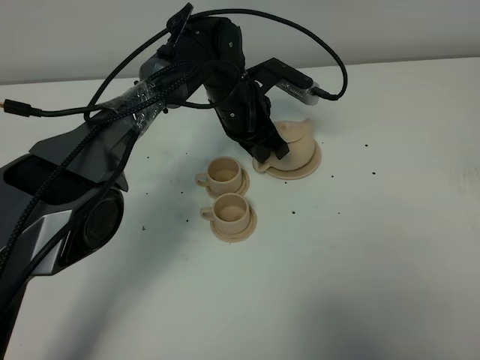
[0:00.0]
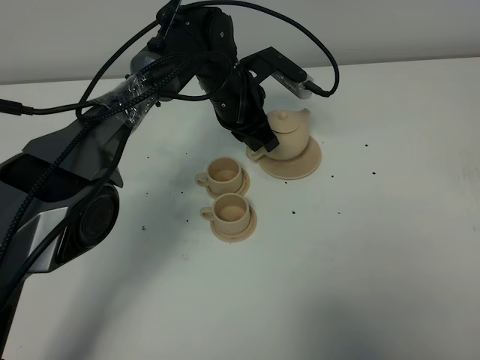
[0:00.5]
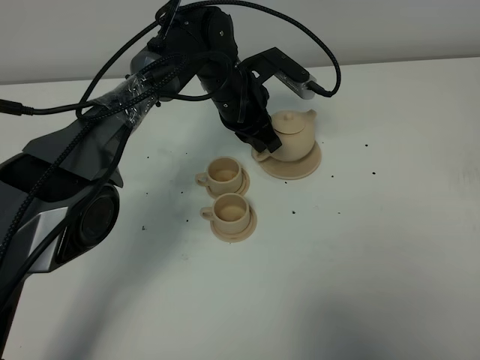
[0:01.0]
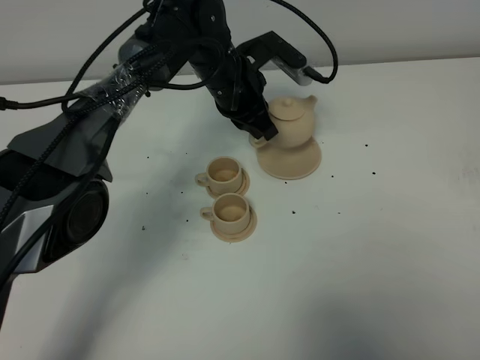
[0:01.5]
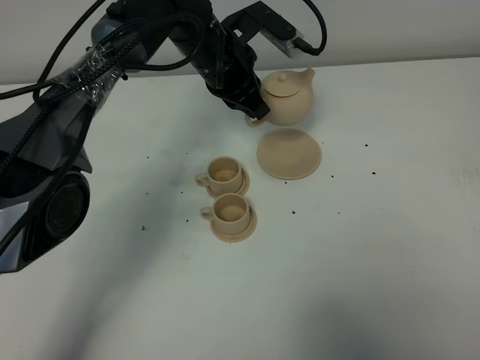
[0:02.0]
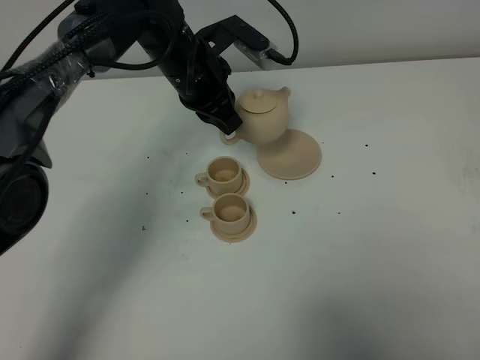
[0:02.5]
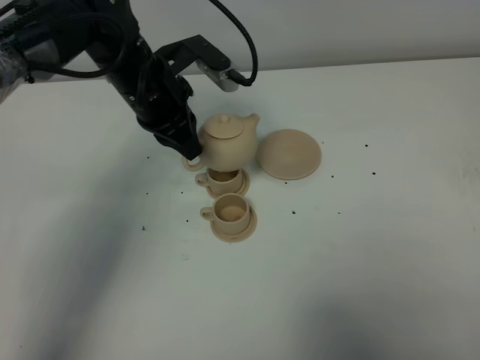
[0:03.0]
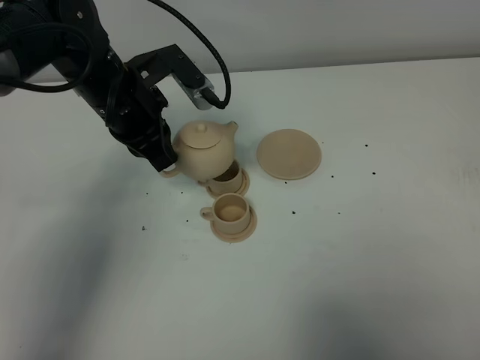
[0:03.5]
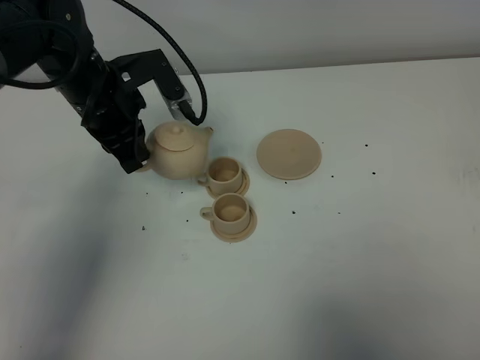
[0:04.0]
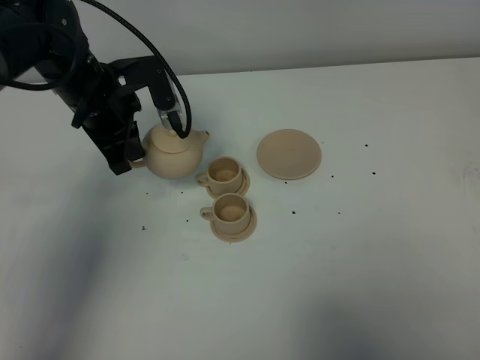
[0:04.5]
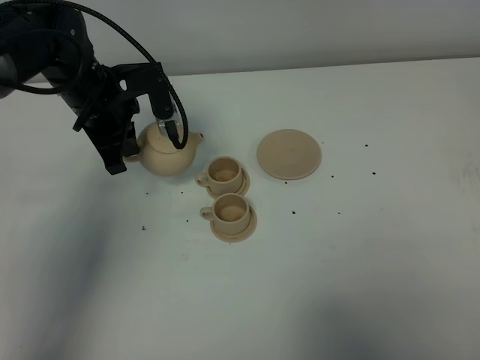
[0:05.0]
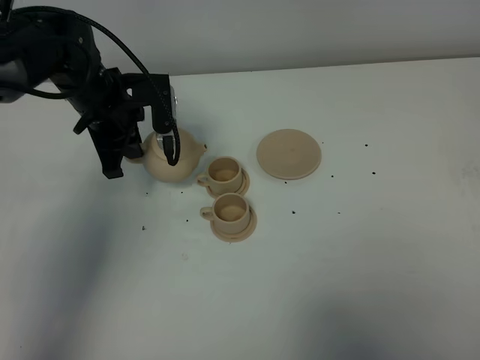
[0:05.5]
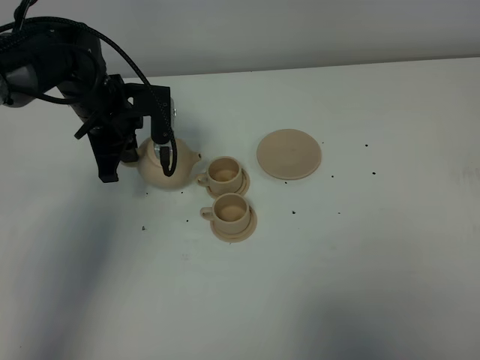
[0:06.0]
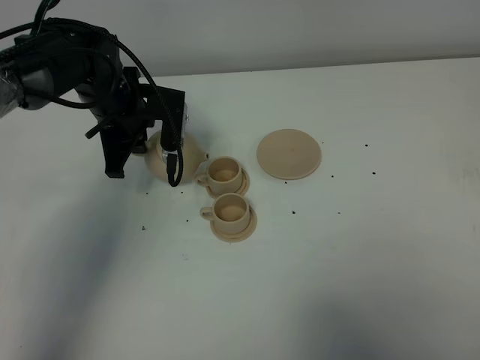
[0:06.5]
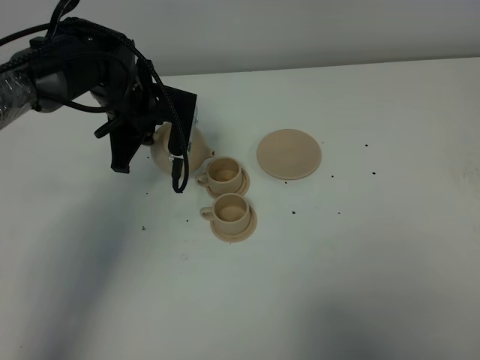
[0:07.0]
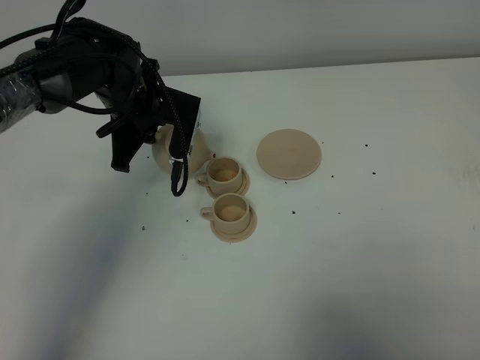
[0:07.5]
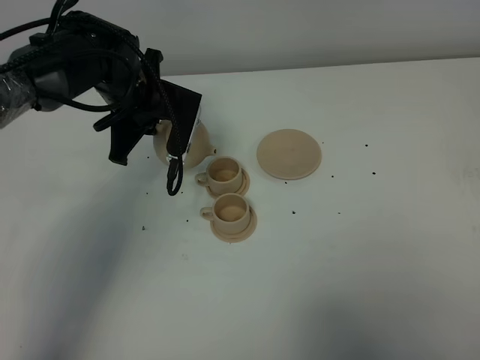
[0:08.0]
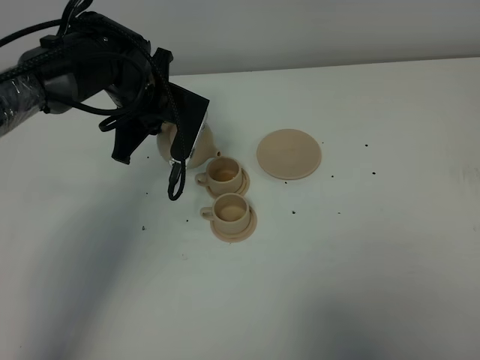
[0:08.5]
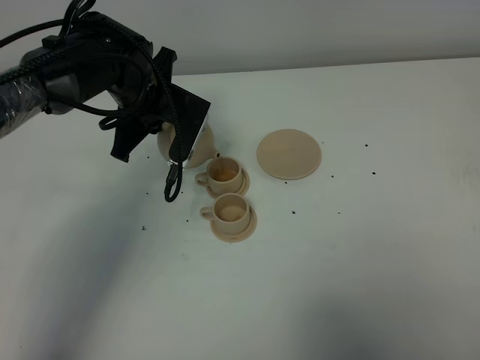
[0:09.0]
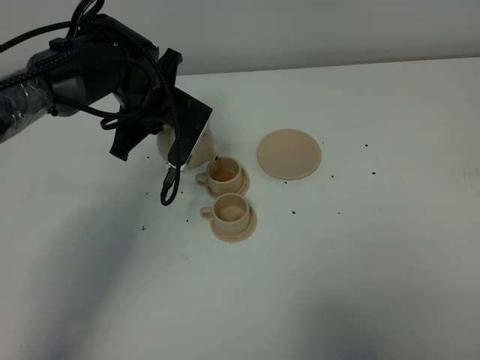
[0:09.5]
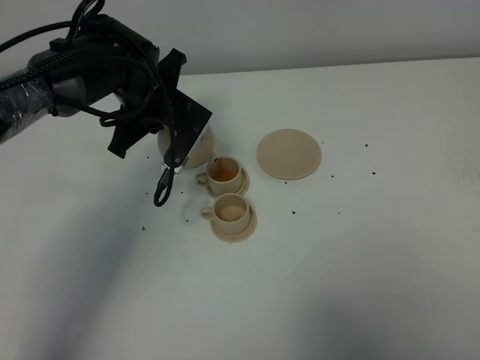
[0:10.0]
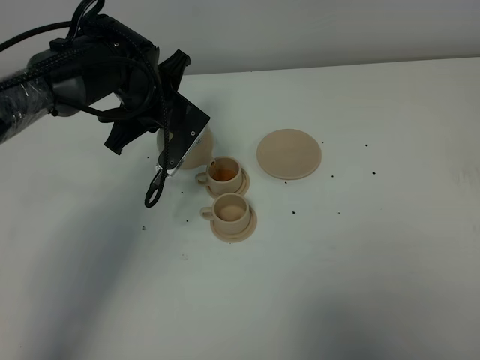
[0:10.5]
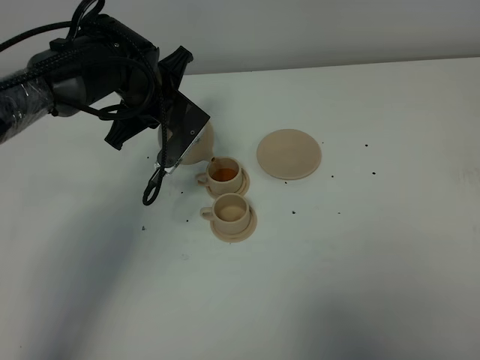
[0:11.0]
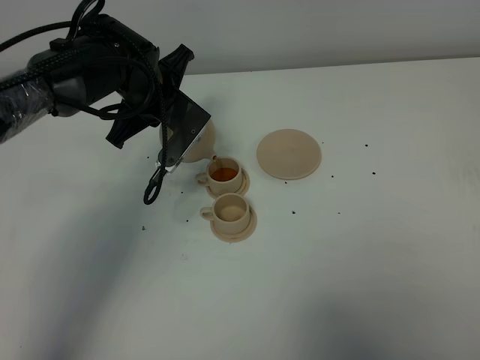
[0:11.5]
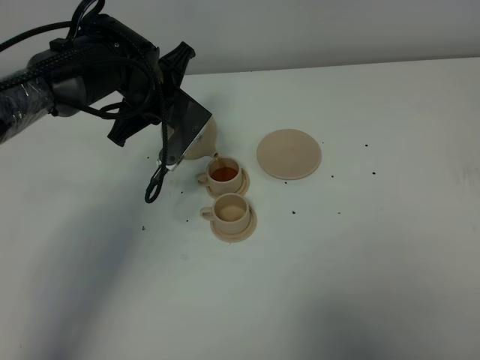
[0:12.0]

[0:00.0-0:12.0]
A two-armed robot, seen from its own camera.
Task of the whole recording: grasp the brown teapot and pour the tea into the two brown teacups one by one, put the brown teapot back in its original place.
0:00.0 to 0:02.0: The left gripper travels upward by some 5 cm.
0:02.0 to 0:04.0: The left gripper heads to the left and backward, covering some 15 cm.
0:04.0 to 0:06.0: The left gripper goes about 5 cm downward.
0:08.0 to 0:10.0: There are only small adjustments of the grippers.
0:10.0 to 0:12.0: The grippers stay close to where they were, moving slightly.

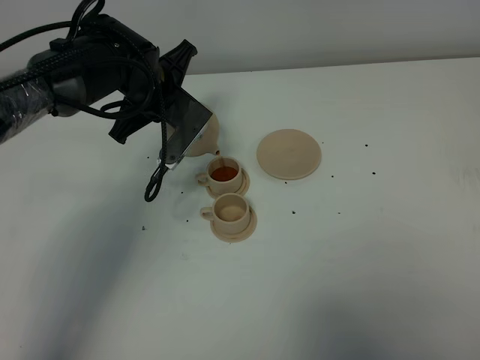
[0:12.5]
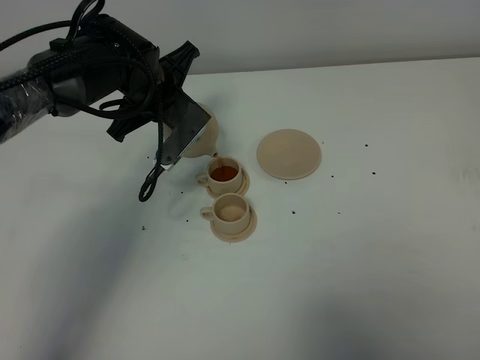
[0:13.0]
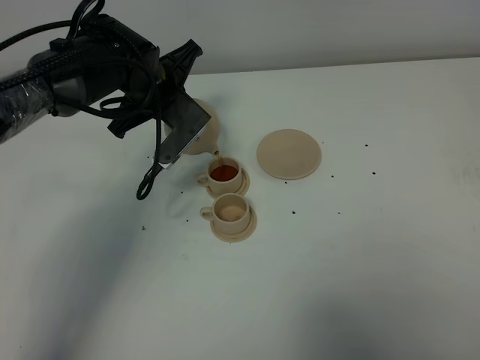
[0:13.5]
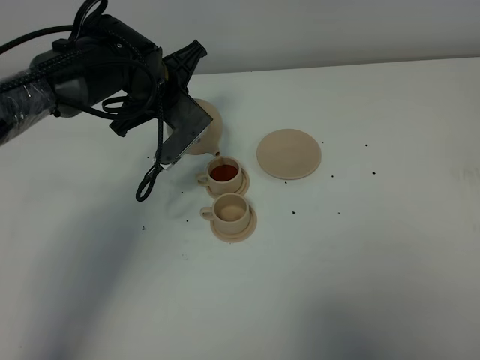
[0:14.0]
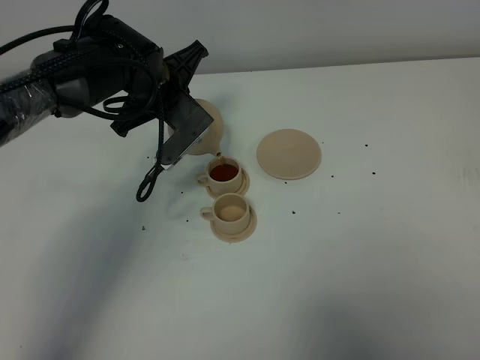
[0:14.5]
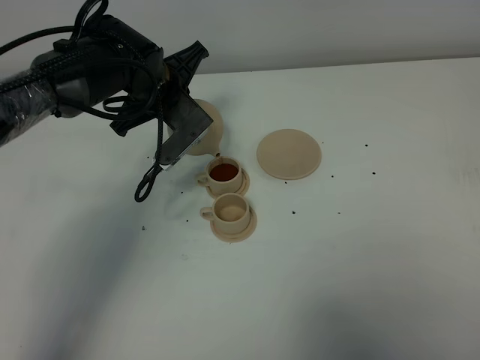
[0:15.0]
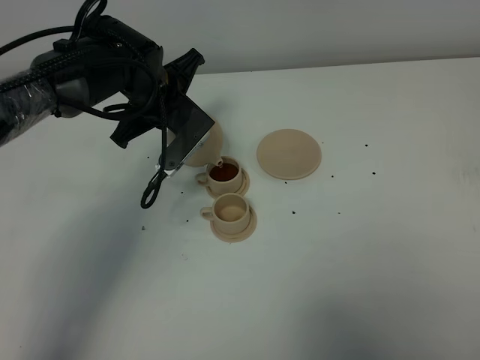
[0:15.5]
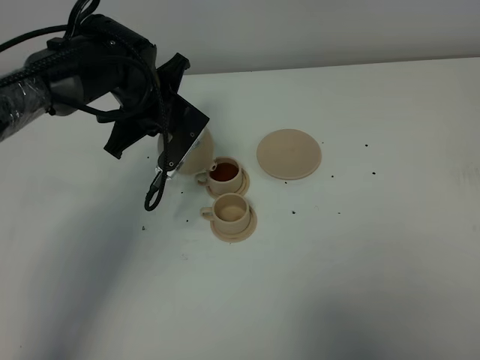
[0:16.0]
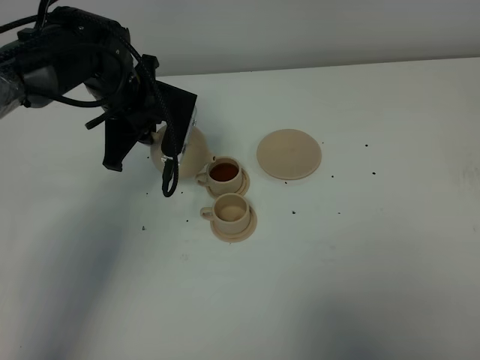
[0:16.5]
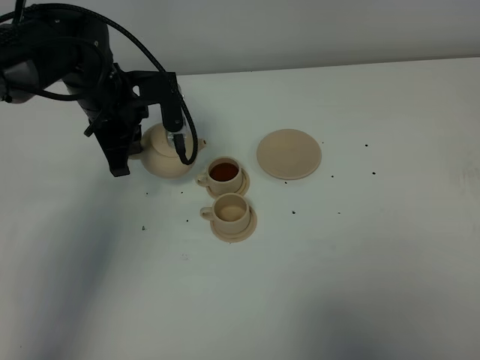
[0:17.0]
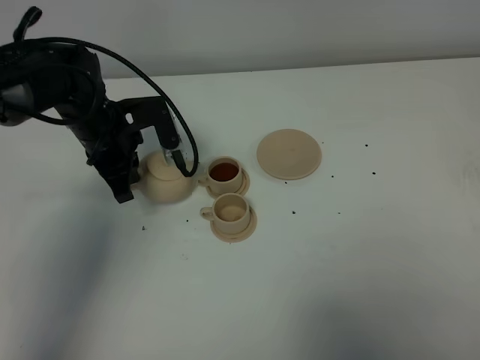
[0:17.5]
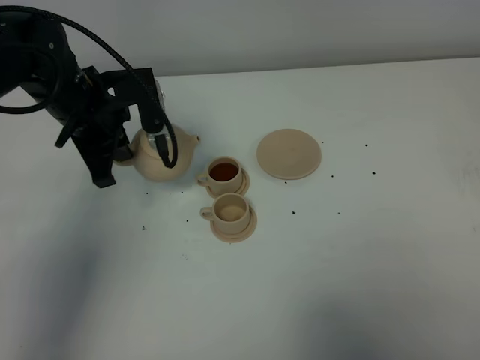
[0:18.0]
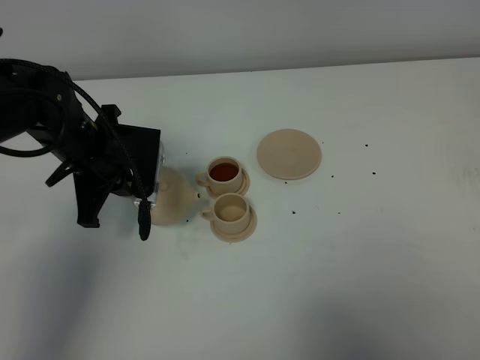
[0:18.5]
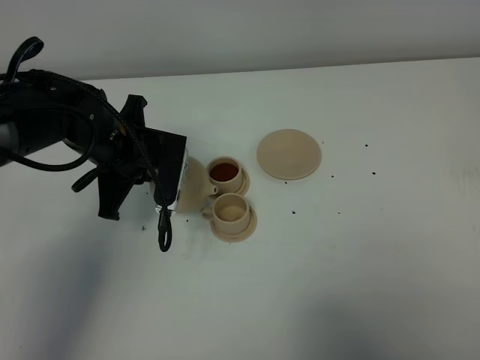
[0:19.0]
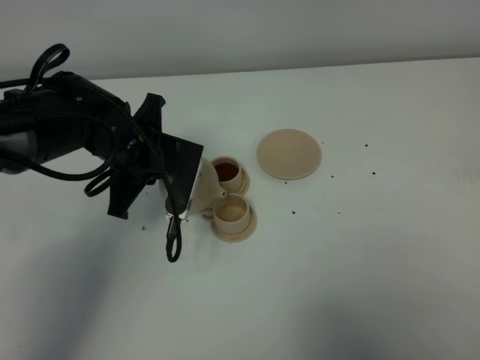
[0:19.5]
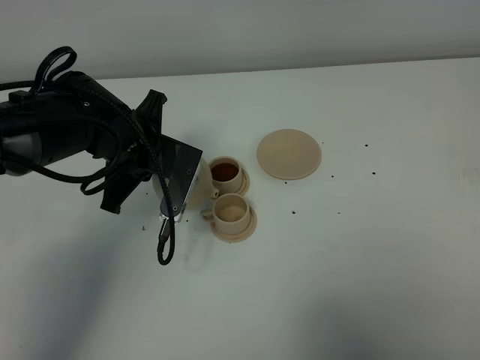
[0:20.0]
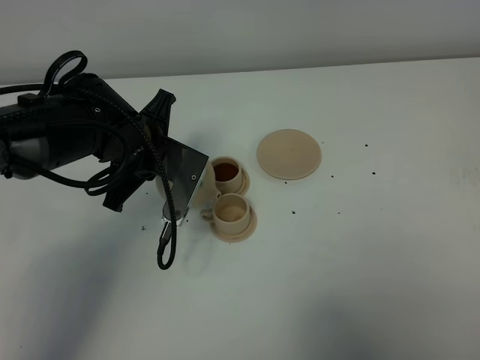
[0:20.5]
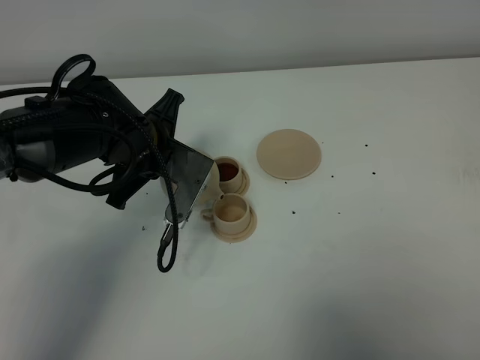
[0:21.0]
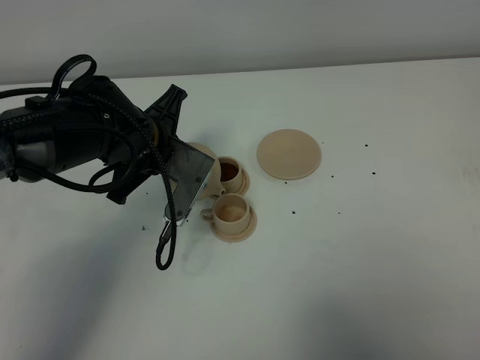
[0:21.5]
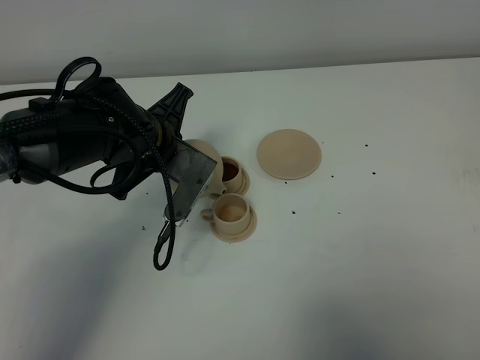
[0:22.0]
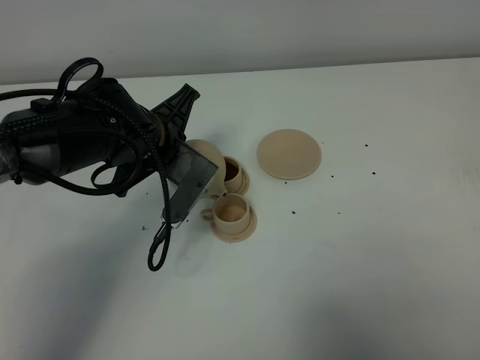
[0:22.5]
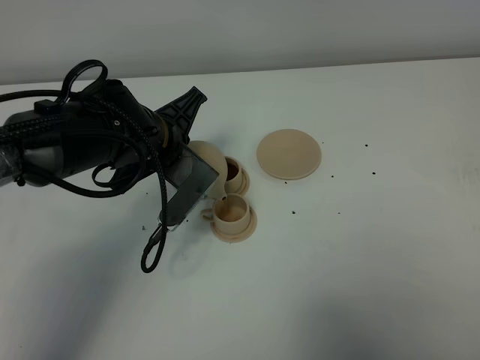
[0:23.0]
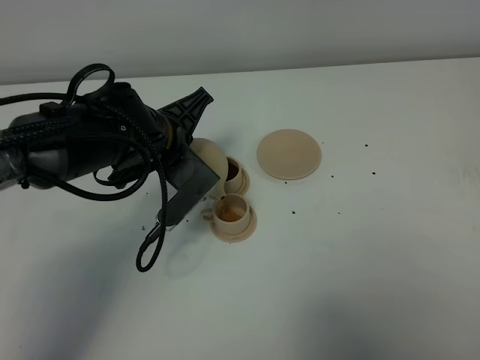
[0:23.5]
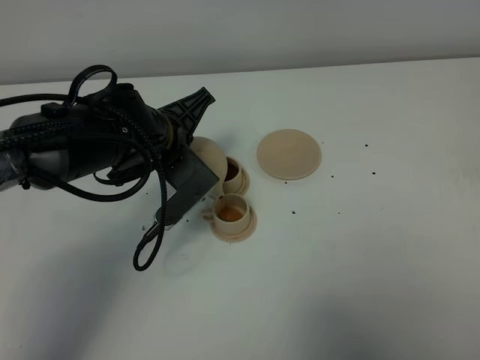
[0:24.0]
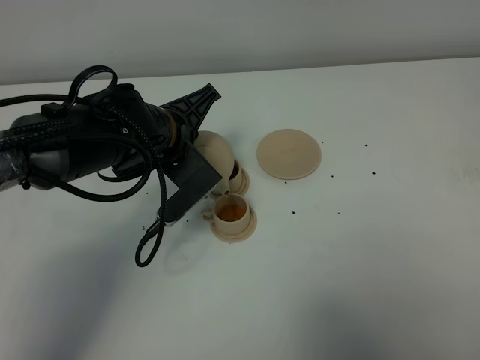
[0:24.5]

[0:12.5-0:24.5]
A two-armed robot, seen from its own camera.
Task of the whole recording: grasp the brown teapot and pour the tea into the two brown teacups one by one, put the brown teapot back in its original place.
Step, 0:12.5 to 0:15.5: Pour tea into the teacup with the left gripper.
0:12.5 to 0:14.5: The grippers make only small movements.
0:16.5 to 0:18.5: The left gripper moves backward, approximately 5 cm.
0:18.5 to 0:20.5: The left gripper travels to the right by some 5 cm.
0:20.5 to 0:22.5: The grippers make only small movements.
0:22.5 to 0:24.5: There are only small adjustments of the grippers.

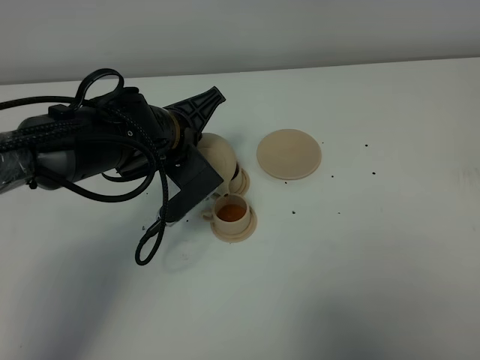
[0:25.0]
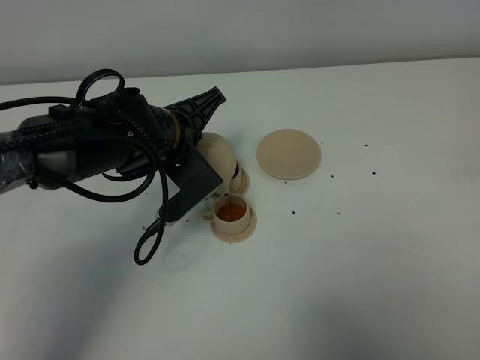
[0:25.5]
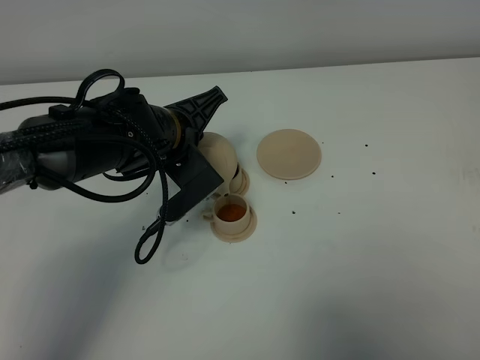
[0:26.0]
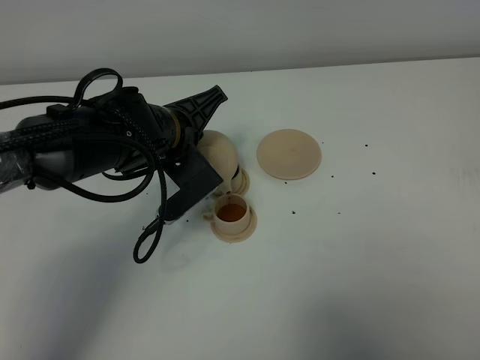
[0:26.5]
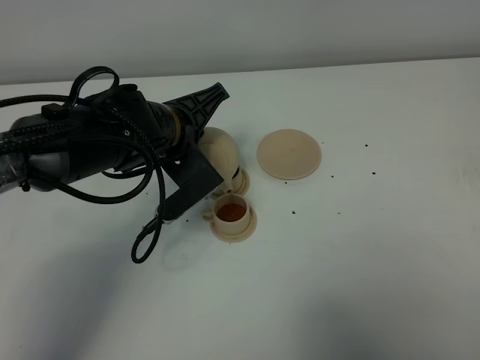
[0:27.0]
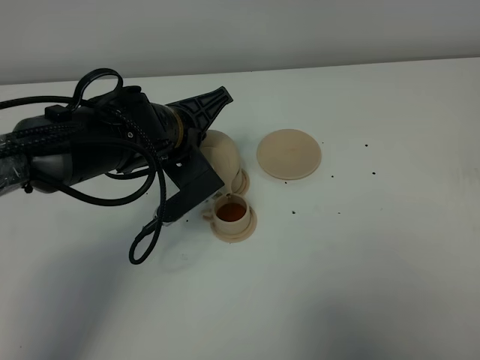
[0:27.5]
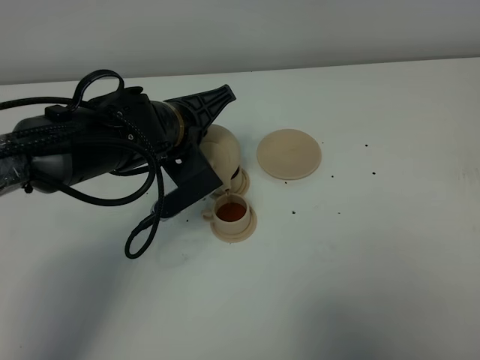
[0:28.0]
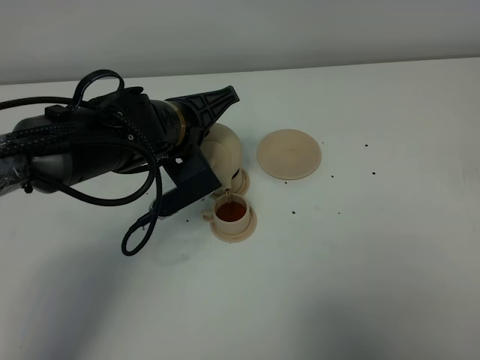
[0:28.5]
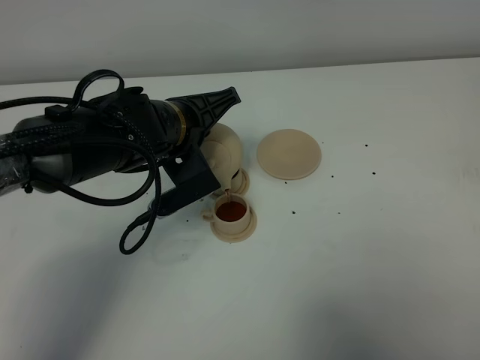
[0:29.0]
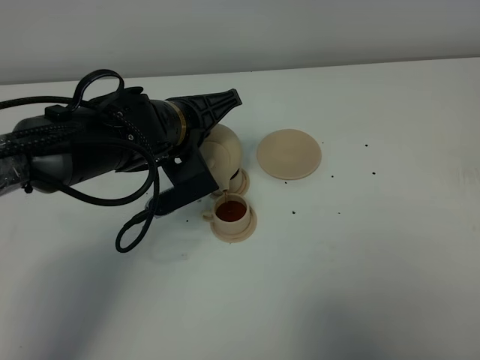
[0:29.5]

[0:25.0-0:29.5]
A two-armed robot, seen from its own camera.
Task of the whole recording: grasp the brown teapot and pour the tea into the two brown teacups one by one, put the brown teapot back in its original place.
0:25.0 to 0:27.0: Neither gripper changes place.
0:27.0 to 0:29.5: The grippers stay close to where they were, moving slightly.
